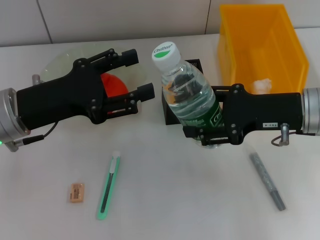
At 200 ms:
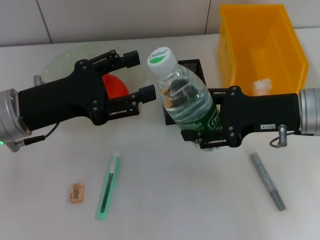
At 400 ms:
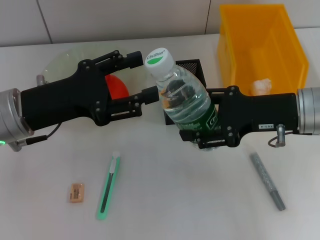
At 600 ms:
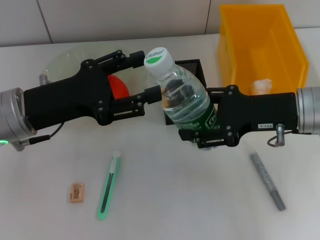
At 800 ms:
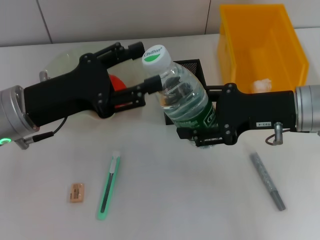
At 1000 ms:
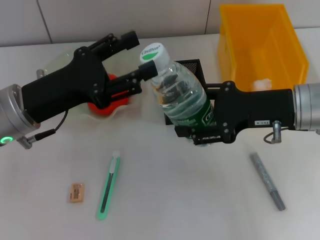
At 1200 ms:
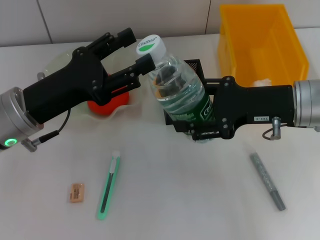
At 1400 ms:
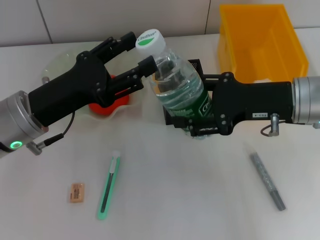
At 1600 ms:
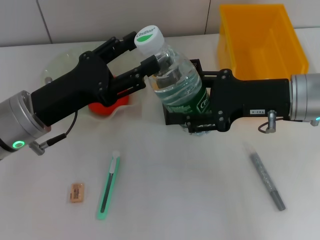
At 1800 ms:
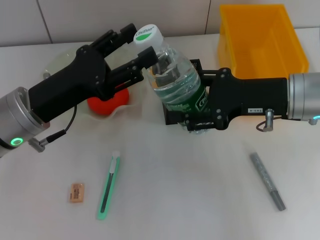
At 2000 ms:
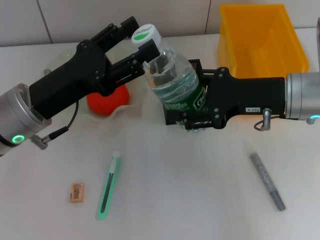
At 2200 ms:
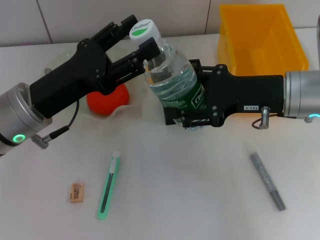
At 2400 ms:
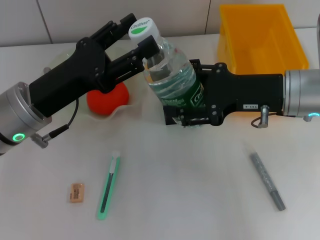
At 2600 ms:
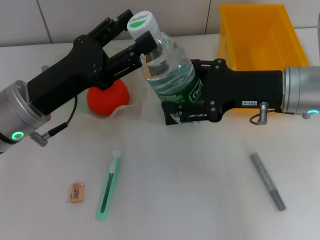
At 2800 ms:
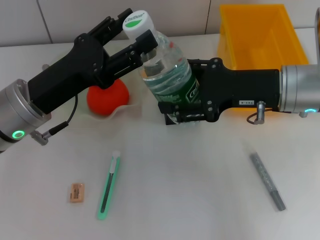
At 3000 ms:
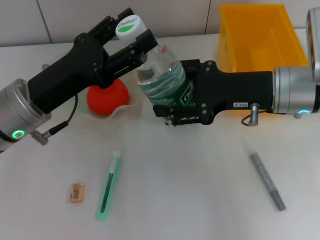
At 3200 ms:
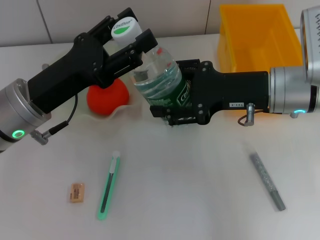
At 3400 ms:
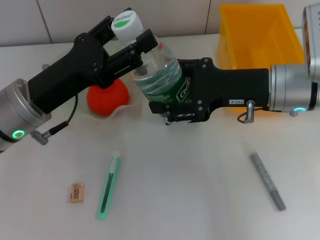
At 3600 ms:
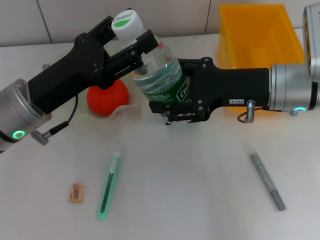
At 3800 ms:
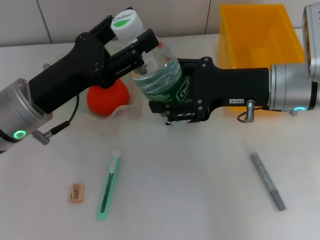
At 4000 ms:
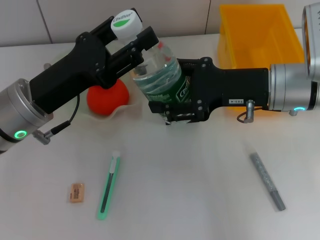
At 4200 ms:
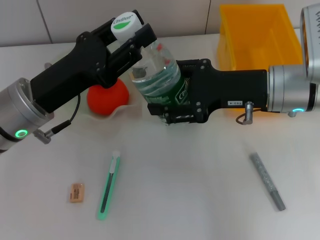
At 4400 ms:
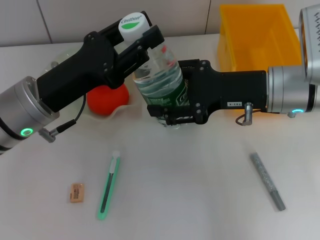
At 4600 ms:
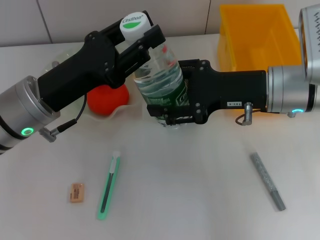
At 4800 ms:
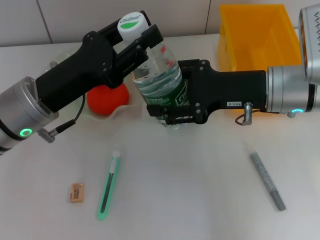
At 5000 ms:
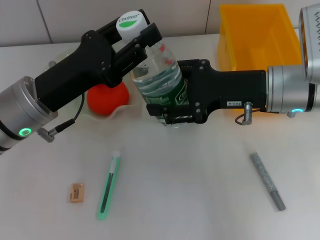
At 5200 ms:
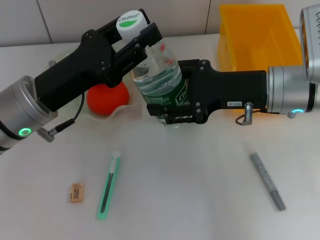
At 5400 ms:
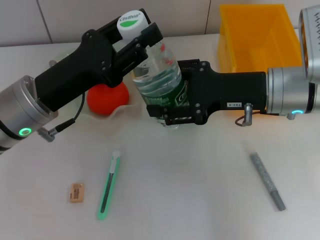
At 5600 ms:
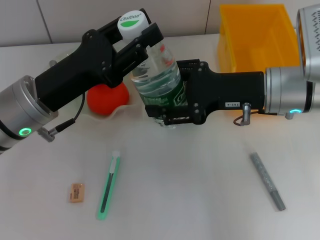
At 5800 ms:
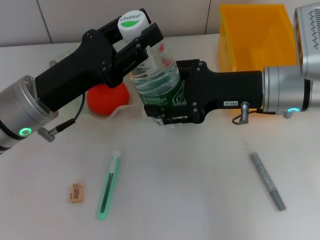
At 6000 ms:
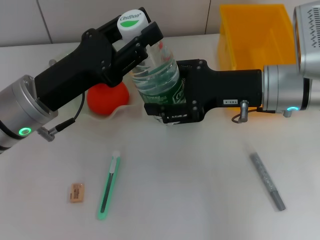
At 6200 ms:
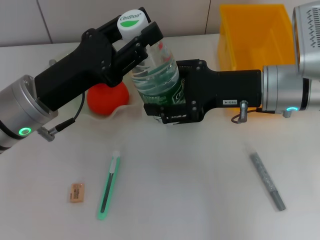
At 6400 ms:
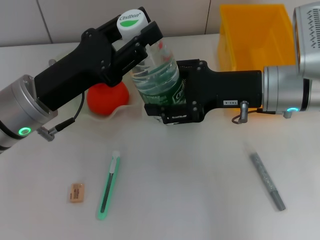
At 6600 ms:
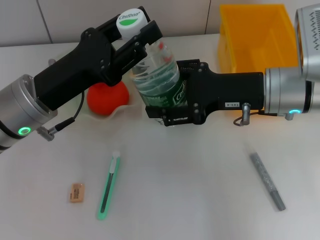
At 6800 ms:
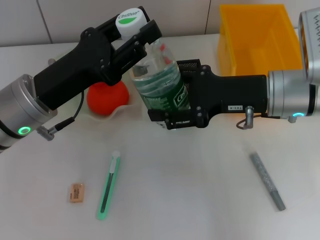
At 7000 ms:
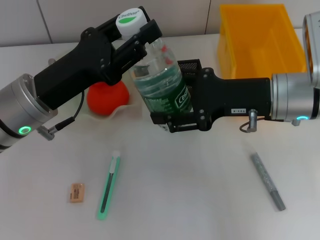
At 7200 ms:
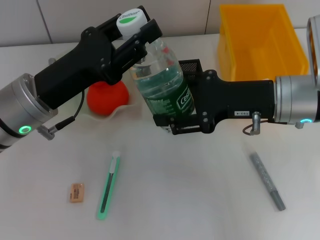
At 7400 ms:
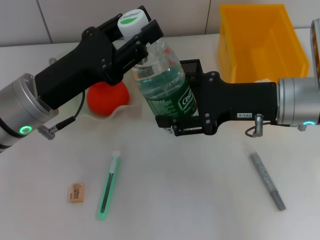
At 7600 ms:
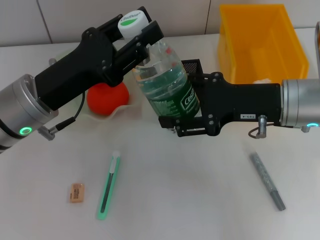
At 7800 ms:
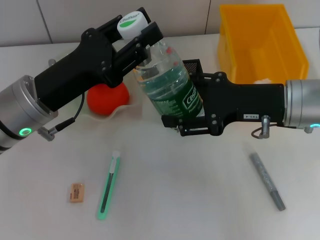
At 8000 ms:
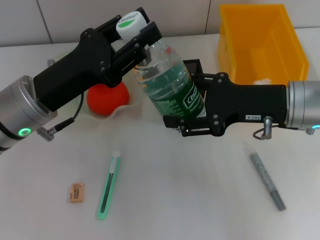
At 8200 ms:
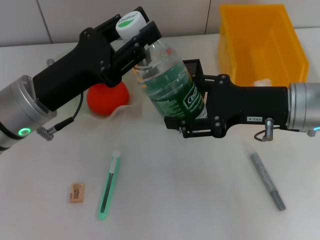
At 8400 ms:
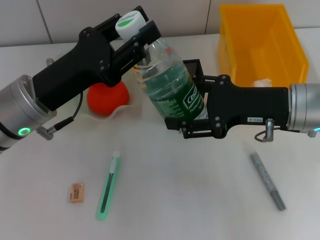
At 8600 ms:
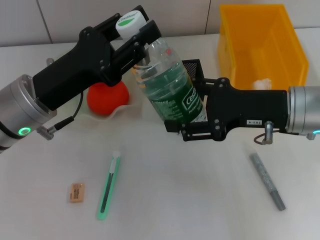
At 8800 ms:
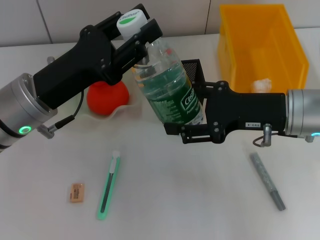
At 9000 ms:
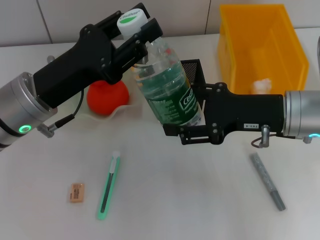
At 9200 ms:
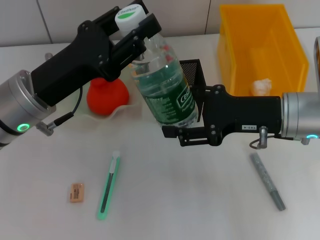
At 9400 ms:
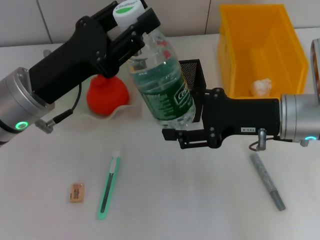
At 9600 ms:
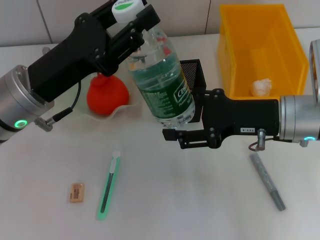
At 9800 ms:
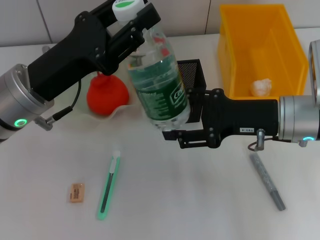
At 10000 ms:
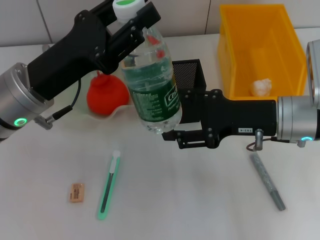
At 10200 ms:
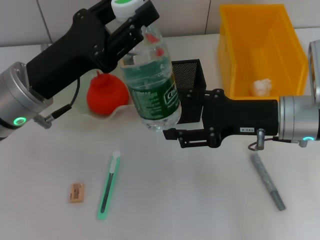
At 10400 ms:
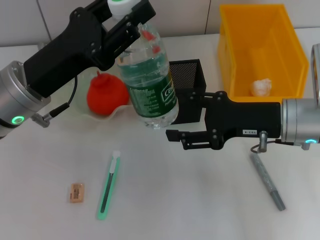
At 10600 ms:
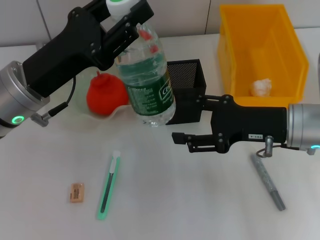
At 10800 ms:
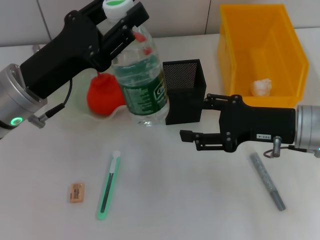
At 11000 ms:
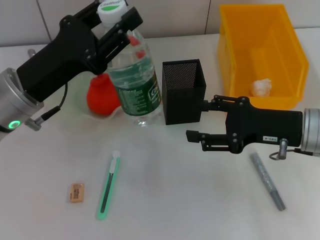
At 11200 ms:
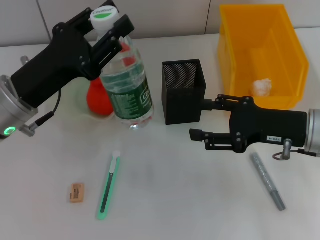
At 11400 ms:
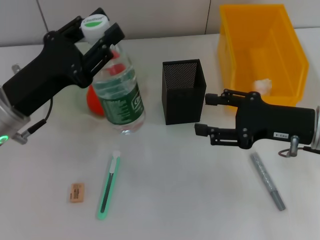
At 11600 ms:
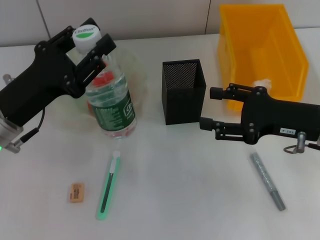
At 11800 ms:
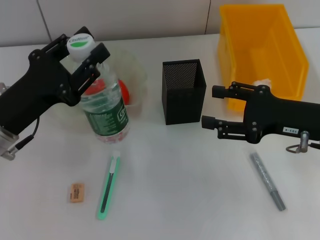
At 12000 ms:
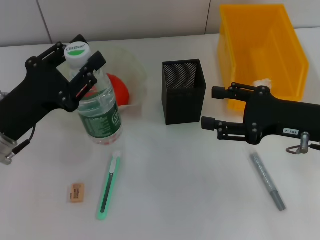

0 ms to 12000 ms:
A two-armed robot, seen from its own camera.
Step, 0 ms to 10200 ms: Pass the water bottle from the right hand to the left hand.
0 ms to 3000 ms: The grippers move only a little.
3000 ms to 4400 ms: The left gripper closes its fingers.
4400 ms to 6000 ms: Both grippers stay put.
6000 ms to 10400 ms: The grippers make only small movements.
10400 ms to 12000 ms: The right gripper ends up roughly 5 cm from where it was, while the left gripper travels to the left by roughly 5 cm.

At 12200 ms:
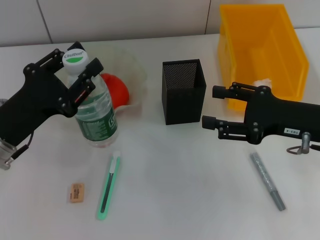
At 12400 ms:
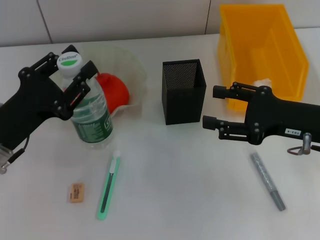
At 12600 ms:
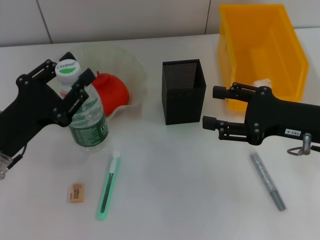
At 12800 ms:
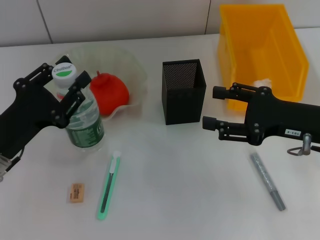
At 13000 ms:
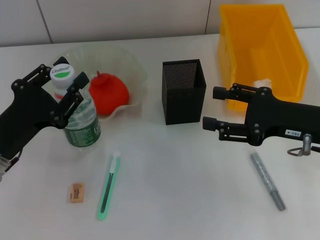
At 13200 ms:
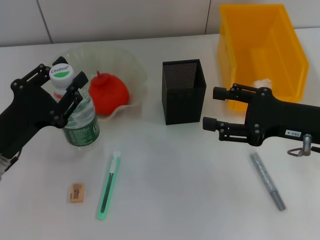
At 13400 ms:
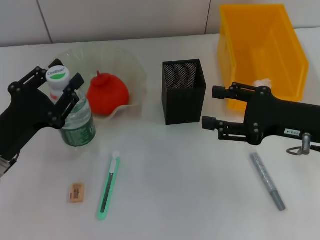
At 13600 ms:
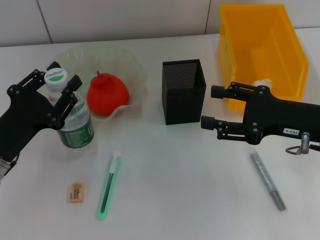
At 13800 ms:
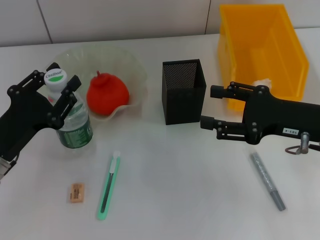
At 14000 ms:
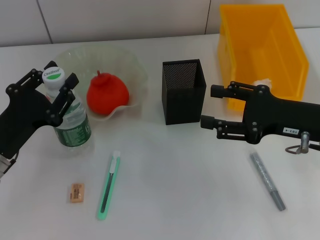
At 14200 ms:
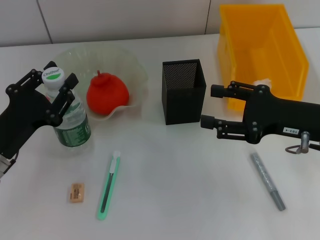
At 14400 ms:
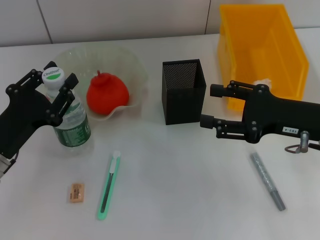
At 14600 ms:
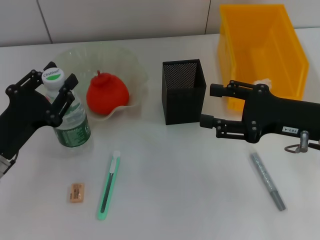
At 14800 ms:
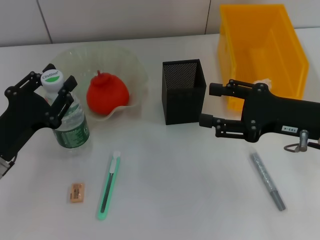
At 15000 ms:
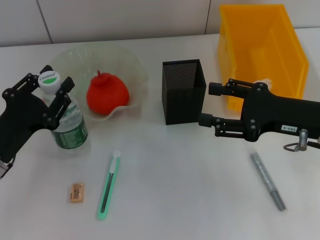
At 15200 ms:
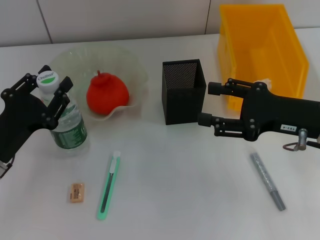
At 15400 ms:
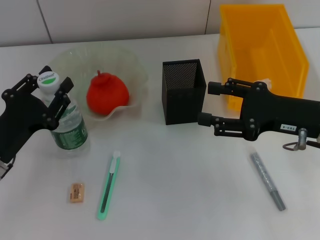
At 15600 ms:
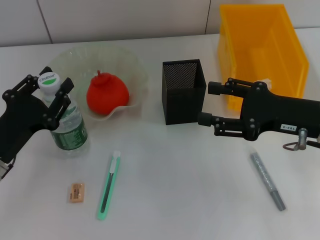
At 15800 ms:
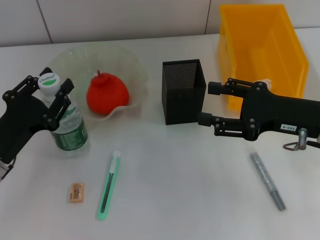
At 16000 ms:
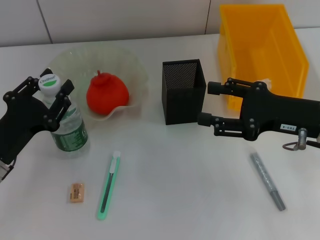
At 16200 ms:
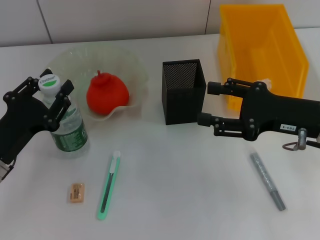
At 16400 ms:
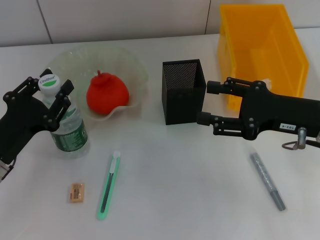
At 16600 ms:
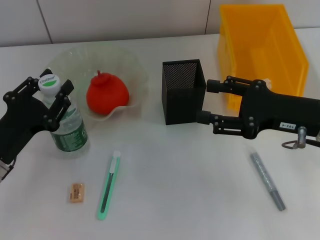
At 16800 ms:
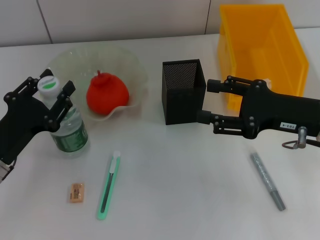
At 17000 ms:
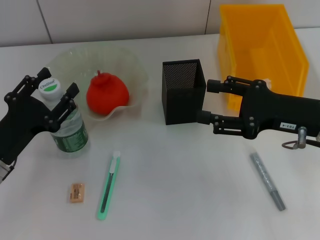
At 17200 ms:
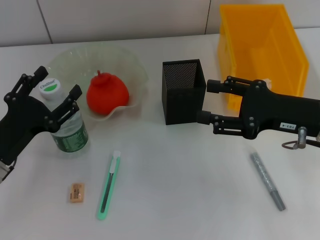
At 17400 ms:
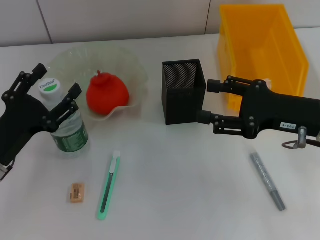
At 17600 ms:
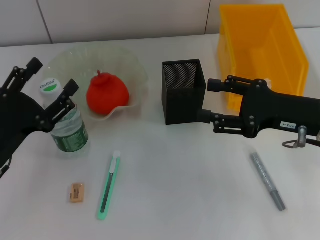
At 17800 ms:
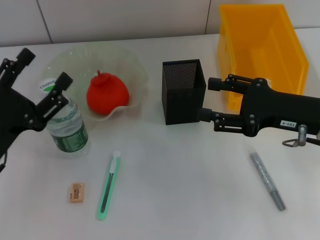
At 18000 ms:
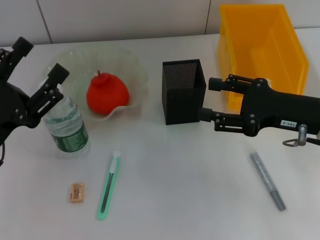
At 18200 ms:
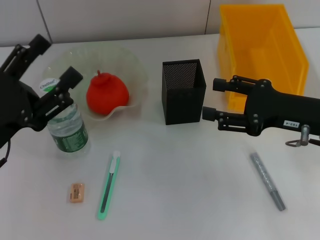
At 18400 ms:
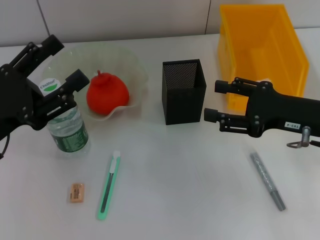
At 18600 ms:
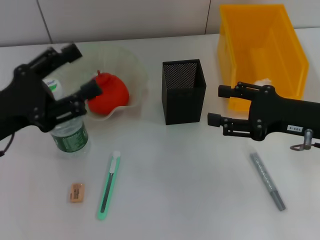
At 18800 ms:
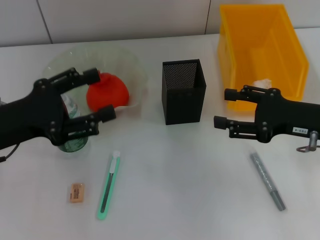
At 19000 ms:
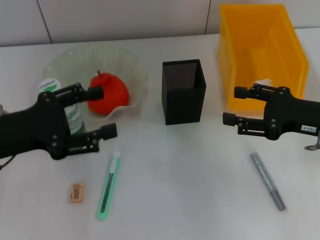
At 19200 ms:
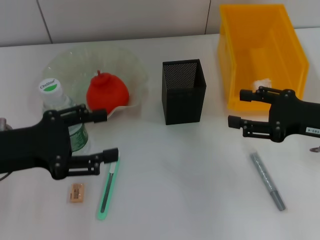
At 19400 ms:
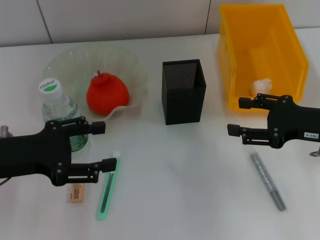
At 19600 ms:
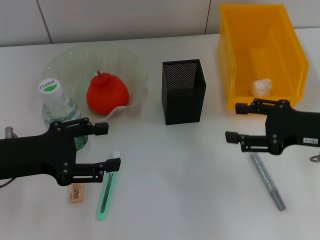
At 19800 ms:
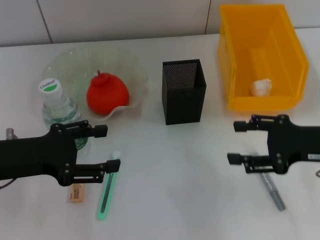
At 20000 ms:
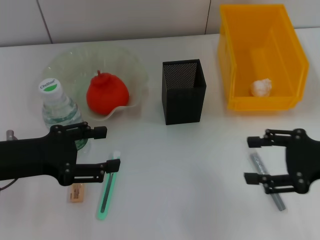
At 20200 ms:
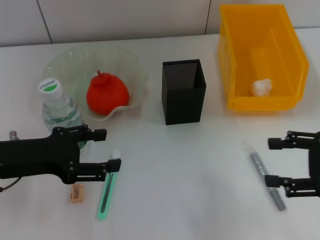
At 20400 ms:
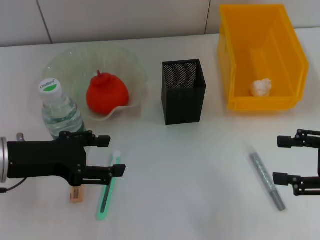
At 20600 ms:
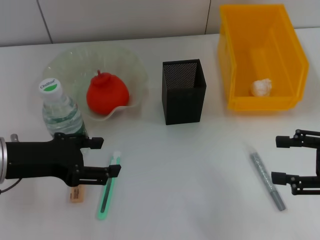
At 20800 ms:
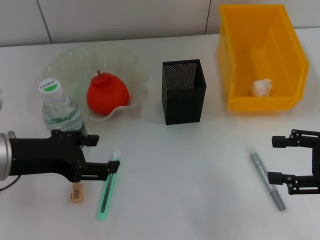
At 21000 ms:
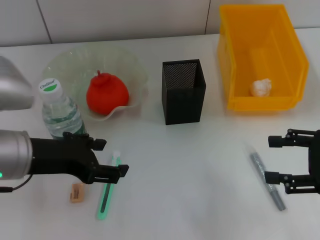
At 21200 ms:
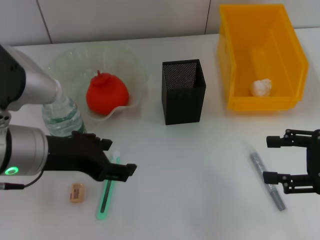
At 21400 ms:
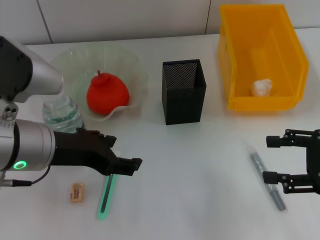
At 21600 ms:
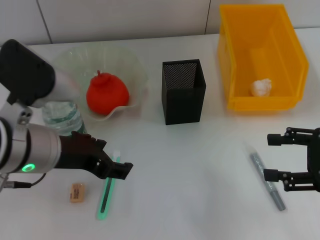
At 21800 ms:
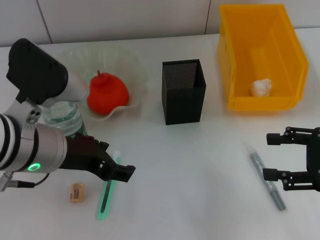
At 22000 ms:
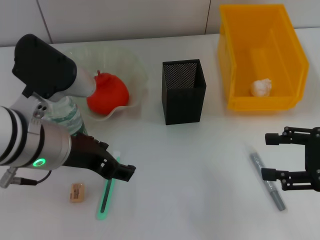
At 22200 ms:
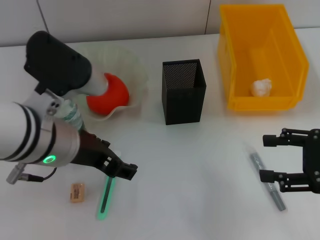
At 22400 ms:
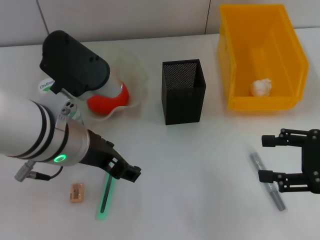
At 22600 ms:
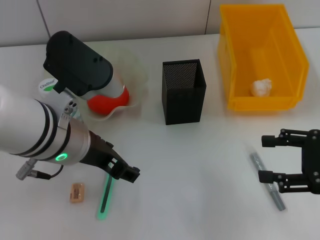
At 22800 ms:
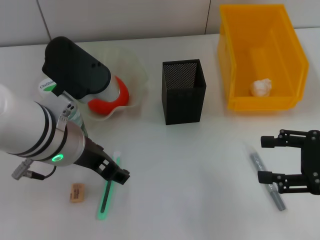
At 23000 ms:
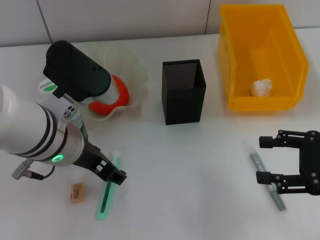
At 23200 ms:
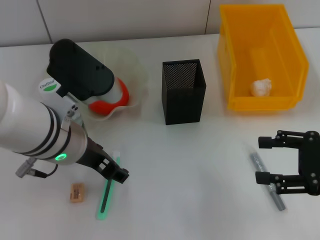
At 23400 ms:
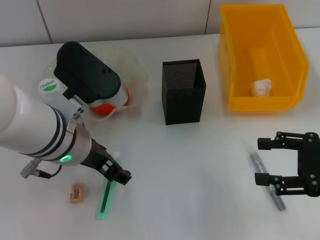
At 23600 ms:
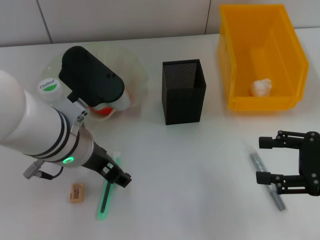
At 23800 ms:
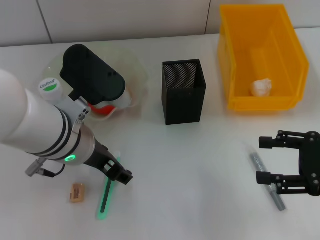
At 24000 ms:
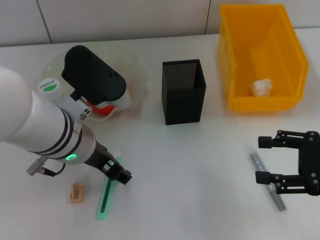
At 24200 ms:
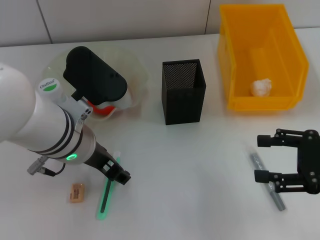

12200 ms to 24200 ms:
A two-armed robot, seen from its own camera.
Step, 12200 ms to 17200 ms: Place the water bottle on the table with the left hand.
12200 ms to 13800 ms: The grippers stay close to where they were, moving slightly.
13800 ms to 15200 ms: Neither gripper changes place.
15200 ms to 16600 ms: Neither gripper changes place.
16600 ms to 18200 ms: The left gripper goes about 5 cm upward, and opens.
19800 ms to 21200 ms: The right gripper shifts by roughly 5 cm, while the left gripper travels to the right by about 5 cm.
21200 ms to 22600 ms: The left gripper shifts approximately 5 cm to the right.
22600 ms to 24200 ms: The grippers stay close to where they were, moving slightly.
